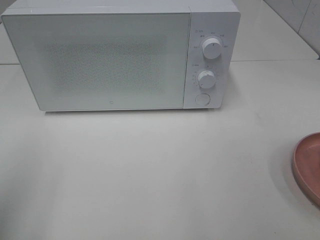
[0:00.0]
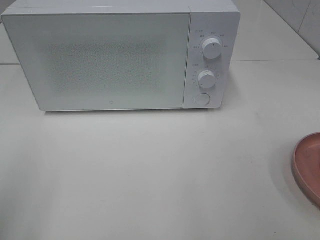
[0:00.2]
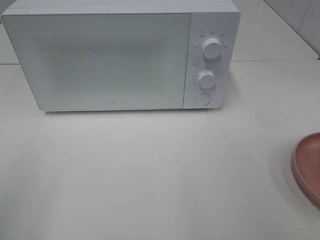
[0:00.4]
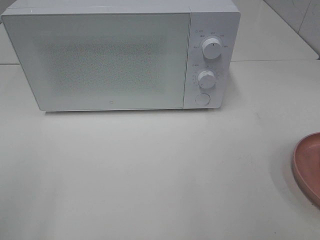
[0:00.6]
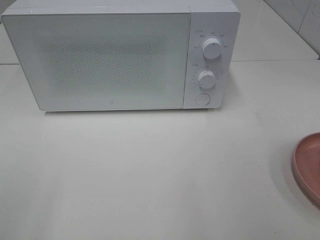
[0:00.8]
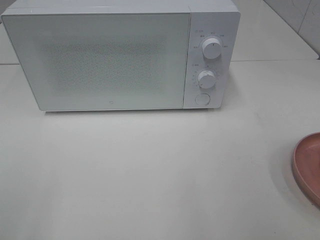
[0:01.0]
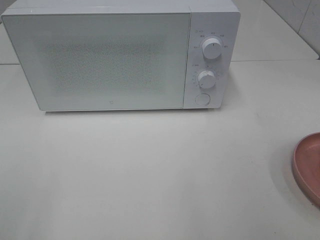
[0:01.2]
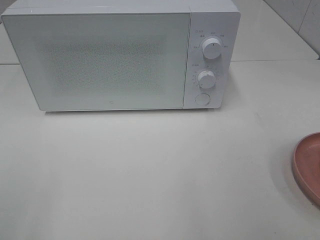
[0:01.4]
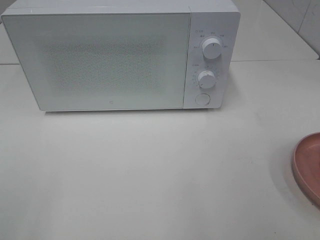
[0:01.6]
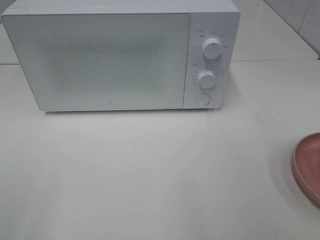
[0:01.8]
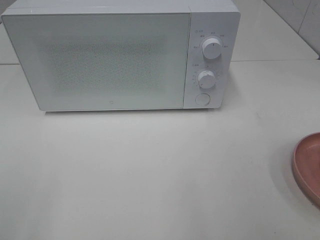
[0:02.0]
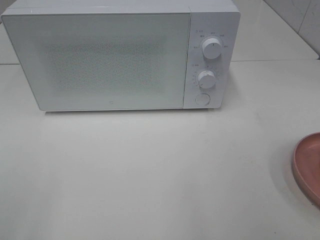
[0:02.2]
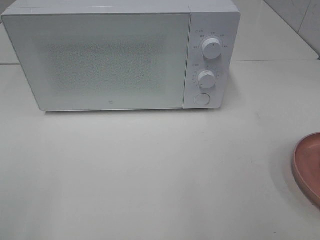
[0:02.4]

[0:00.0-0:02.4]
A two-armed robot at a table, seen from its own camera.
Task of the whole recording: Heat the burger.
0:01.2 to 0:02.4: The two grippers keep their place.

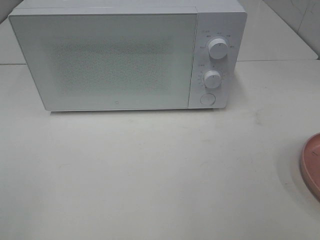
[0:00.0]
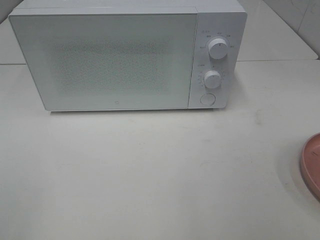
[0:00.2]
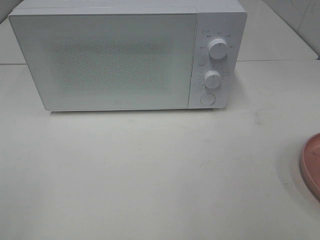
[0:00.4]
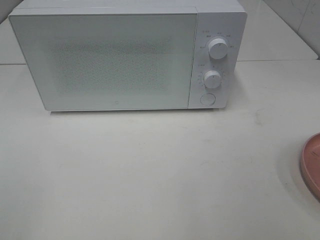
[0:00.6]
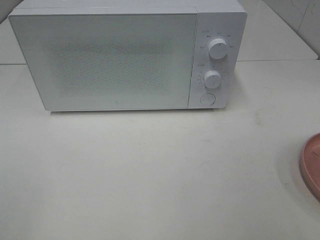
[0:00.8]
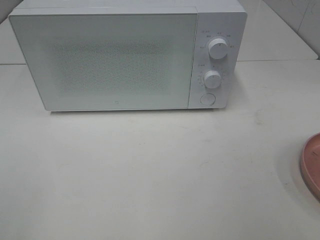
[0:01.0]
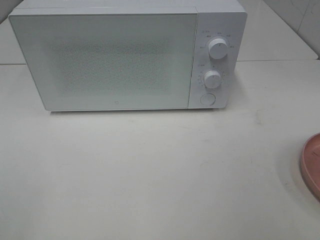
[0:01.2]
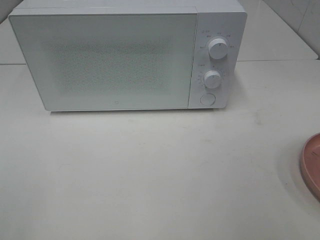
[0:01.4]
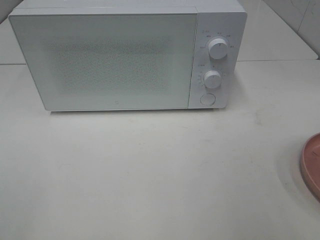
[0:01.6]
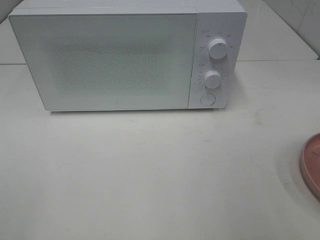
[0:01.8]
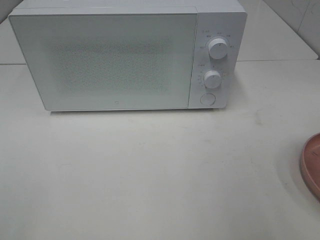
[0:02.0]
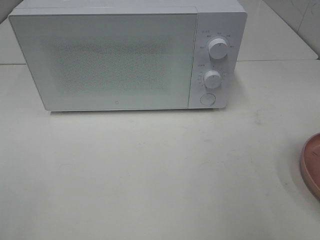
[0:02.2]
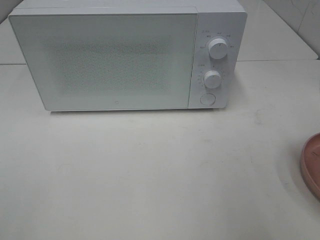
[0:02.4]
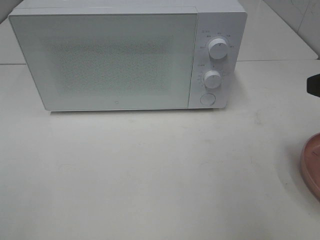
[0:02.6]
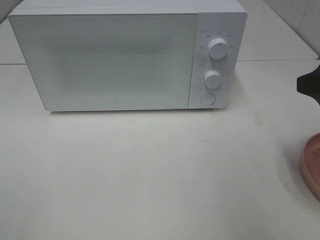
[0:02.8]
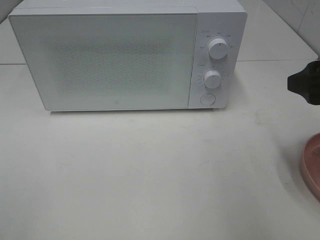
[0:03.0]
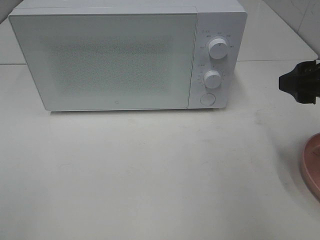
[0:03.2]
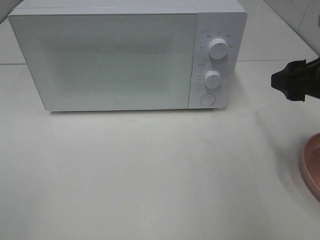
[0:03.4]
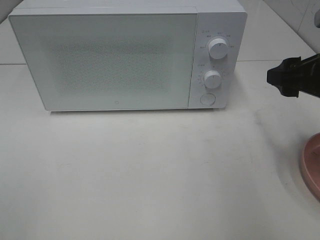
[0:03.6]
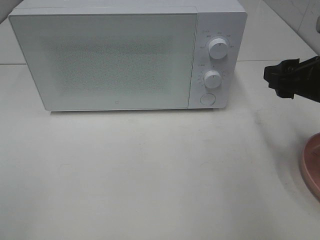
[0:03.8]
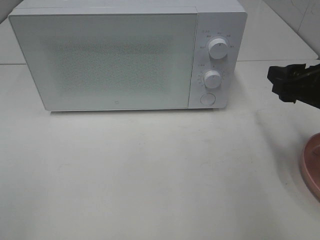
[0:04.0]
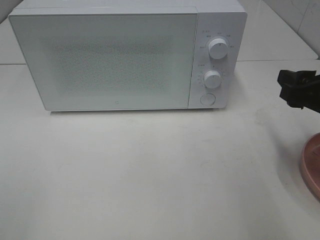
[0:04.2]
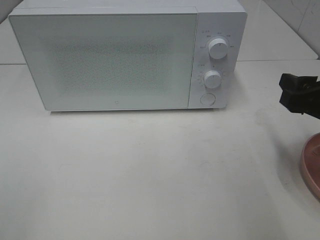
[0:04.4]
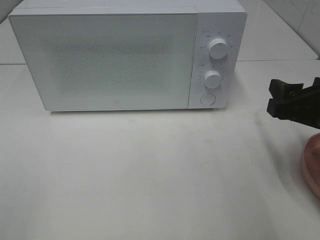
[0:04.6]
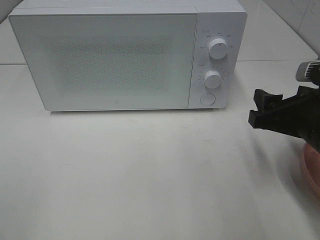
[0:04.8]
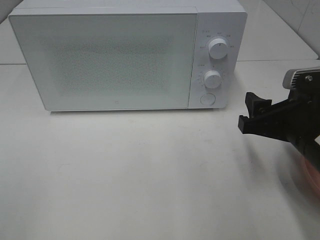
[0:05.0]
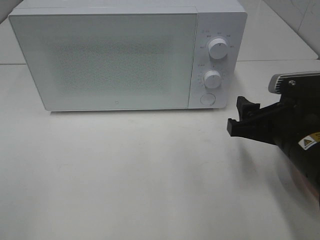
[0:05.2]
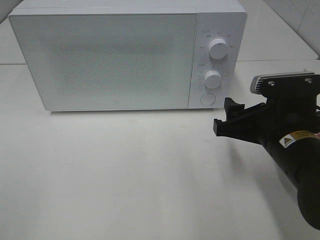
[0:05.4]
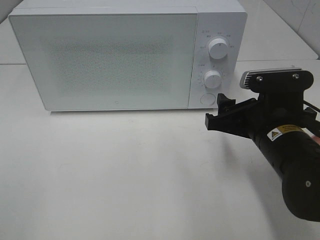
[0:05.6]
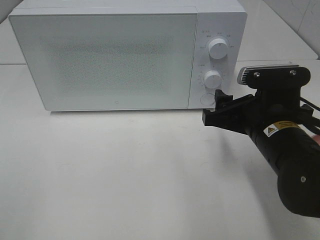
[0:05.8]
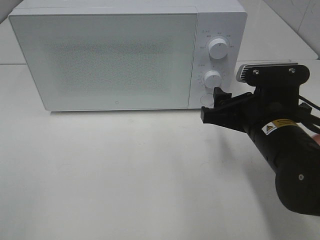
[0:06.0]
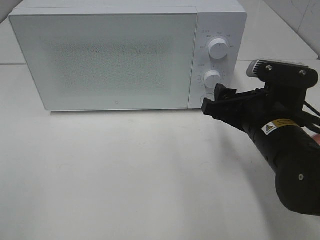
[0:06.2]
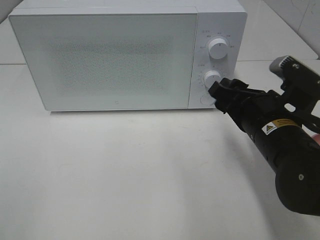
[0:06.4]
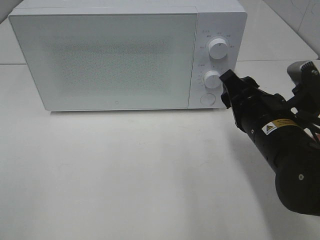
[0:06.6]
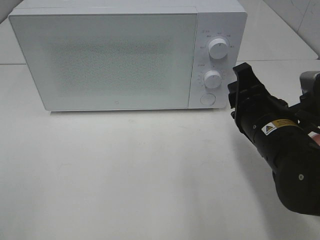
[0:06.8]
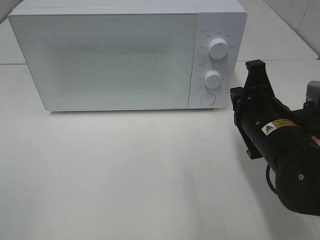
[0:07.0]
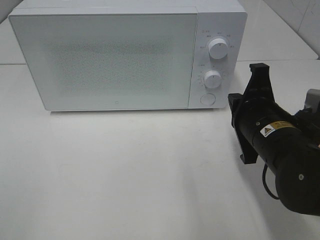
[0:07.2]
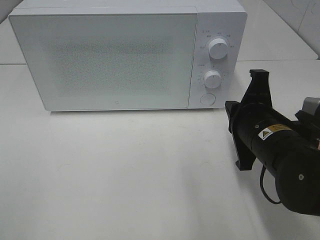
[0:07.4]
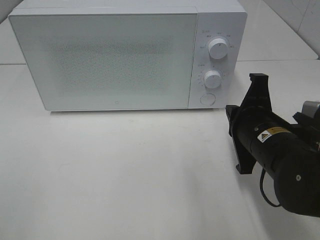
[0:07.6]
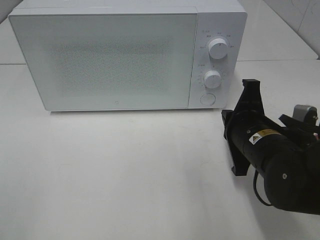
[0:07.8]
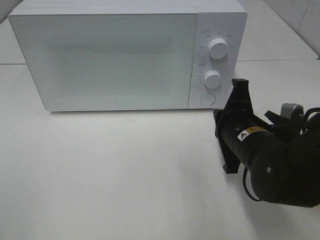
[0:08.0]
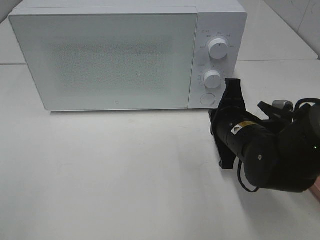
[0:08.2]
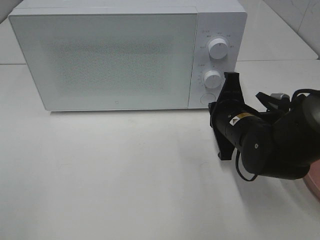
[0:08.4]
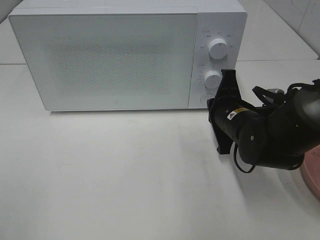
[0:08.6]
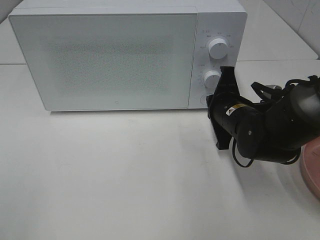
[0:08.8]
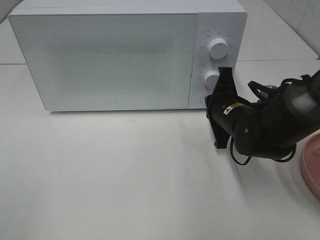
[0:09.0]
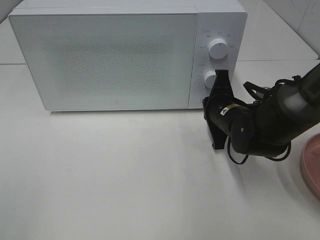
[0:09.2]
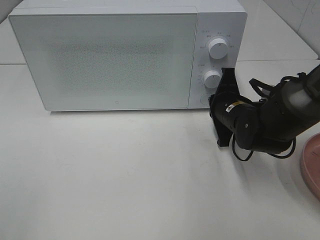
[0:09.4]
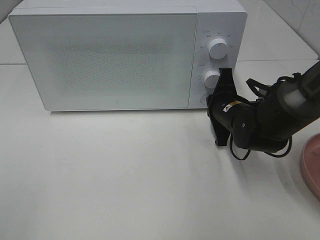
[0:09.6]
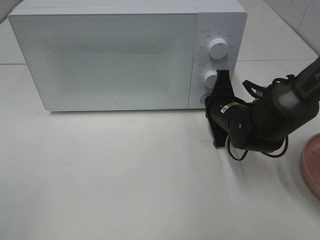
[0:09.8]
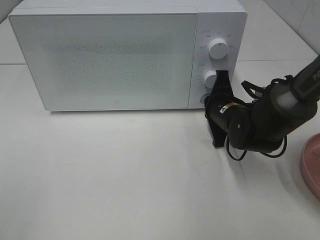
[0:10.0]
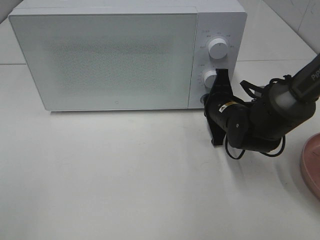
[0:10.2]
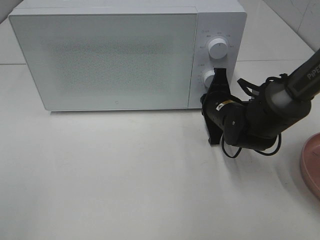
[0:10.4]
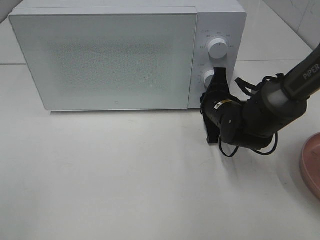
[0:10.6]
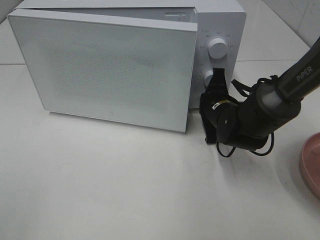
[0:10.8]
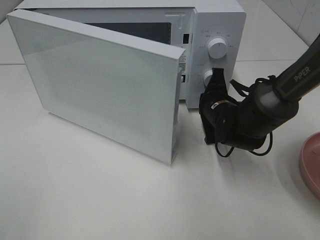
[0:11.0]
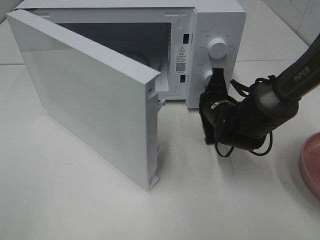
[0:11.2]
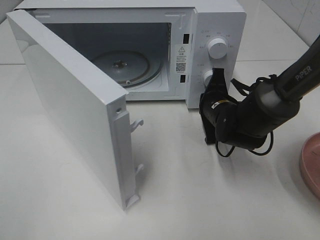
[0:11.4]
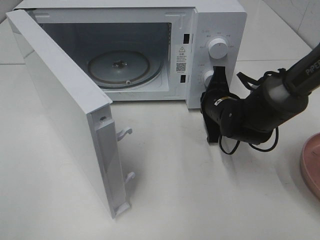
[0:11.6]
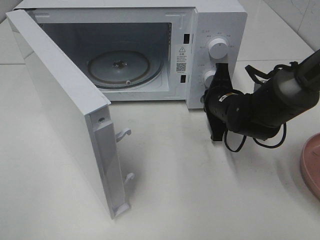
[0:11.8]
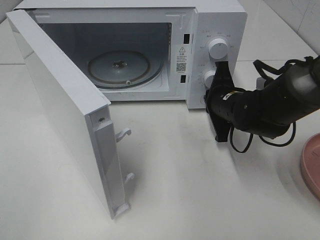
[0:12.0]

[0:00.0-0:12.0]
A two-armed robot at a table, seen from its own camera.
Task of the whole recording: Heat the burger.
0:01.6 to 0:03.0: The right gripper heads forward, covering roughly 15 cm.
0:03.0 to 0:04.4: The right gripper moves downward, approximately 5 cm.
0:04.4 to 0:06.0: The right gripper heads to the left, covering some 10 cm.
0:06.0 to 0:07.6: The right gripper closes its fingers.
0:07.6 to 0:09.0: The right gripper goes about 10 cm forward.
0:09.0 to 0:10.4: The grippers make only small movements.

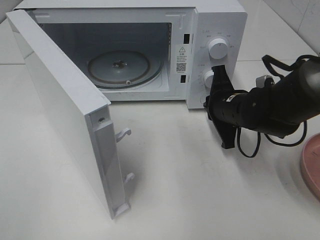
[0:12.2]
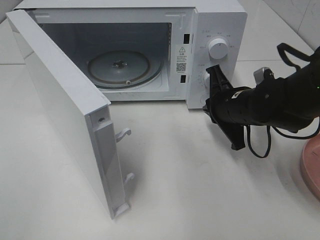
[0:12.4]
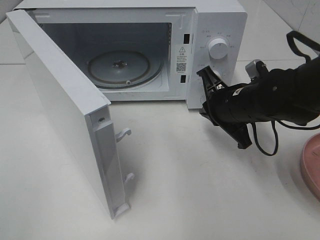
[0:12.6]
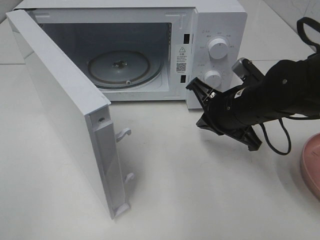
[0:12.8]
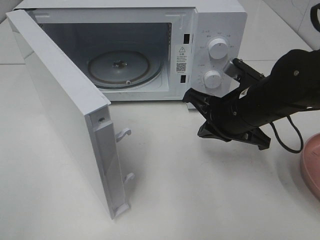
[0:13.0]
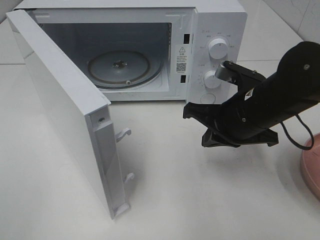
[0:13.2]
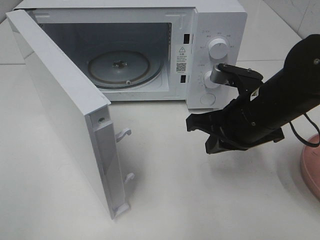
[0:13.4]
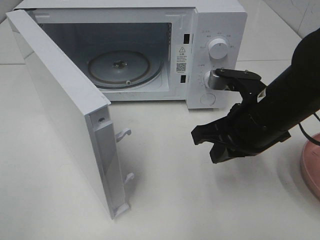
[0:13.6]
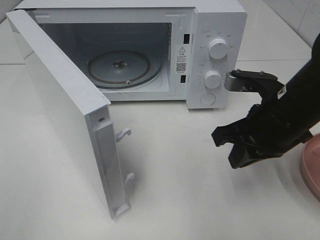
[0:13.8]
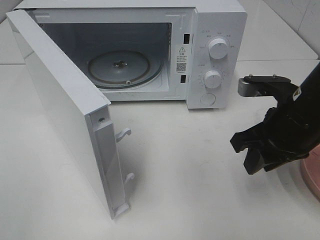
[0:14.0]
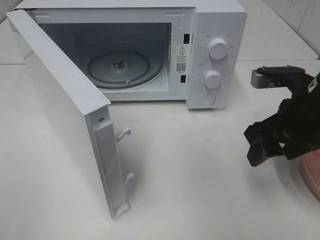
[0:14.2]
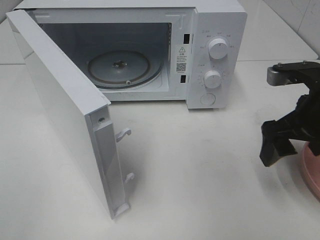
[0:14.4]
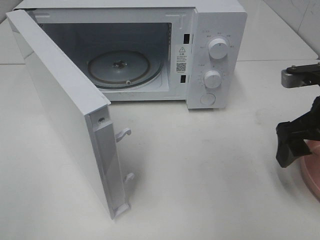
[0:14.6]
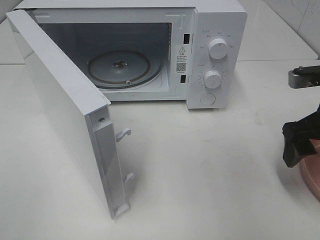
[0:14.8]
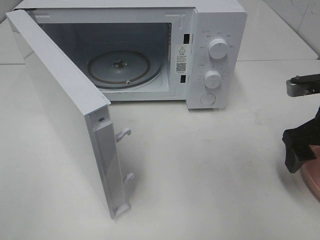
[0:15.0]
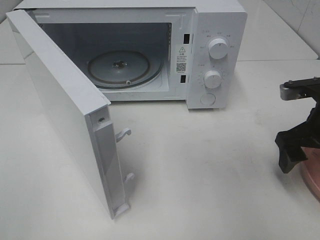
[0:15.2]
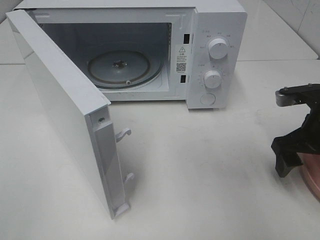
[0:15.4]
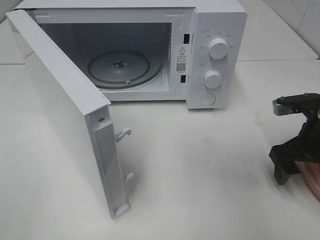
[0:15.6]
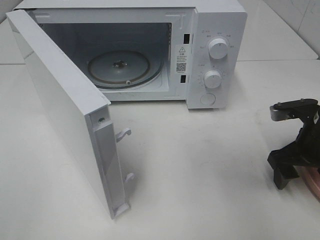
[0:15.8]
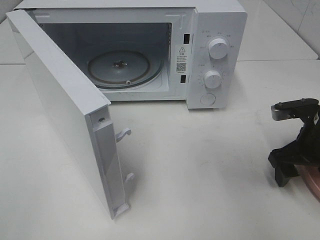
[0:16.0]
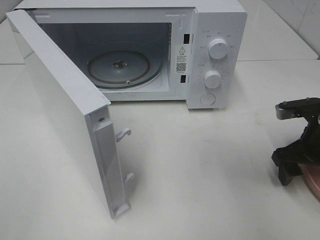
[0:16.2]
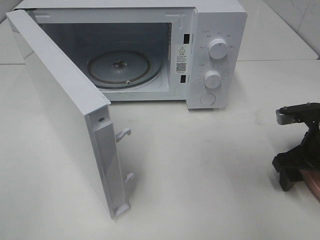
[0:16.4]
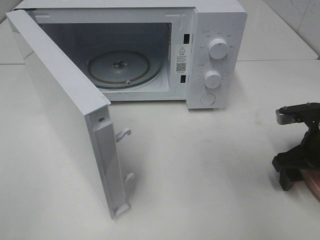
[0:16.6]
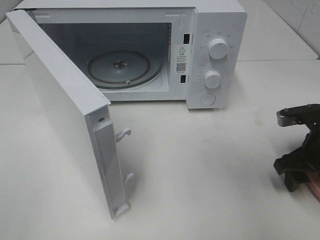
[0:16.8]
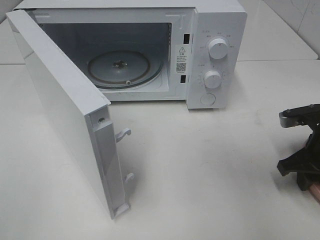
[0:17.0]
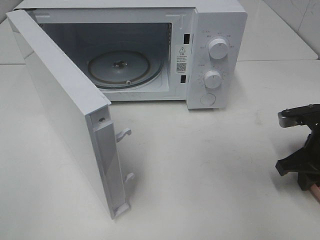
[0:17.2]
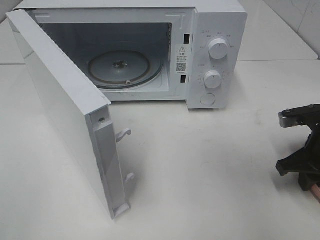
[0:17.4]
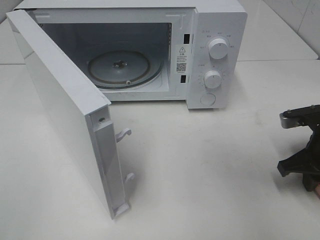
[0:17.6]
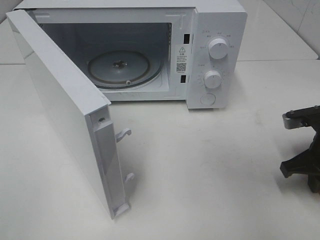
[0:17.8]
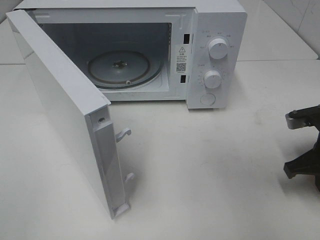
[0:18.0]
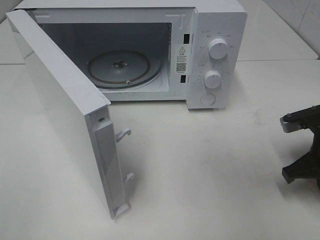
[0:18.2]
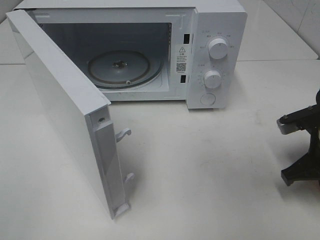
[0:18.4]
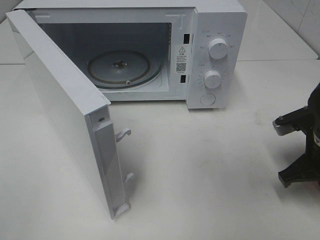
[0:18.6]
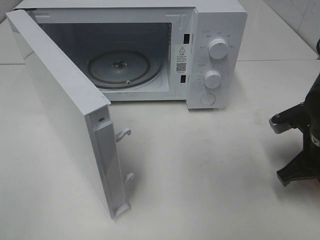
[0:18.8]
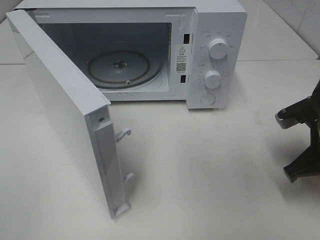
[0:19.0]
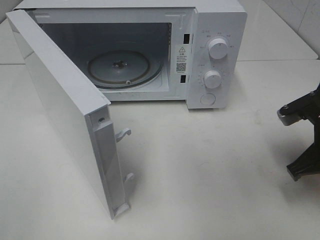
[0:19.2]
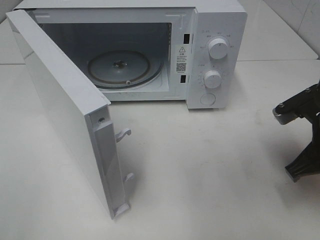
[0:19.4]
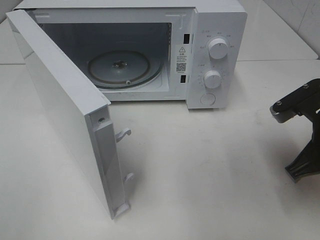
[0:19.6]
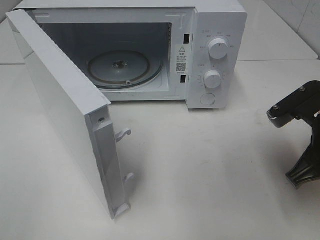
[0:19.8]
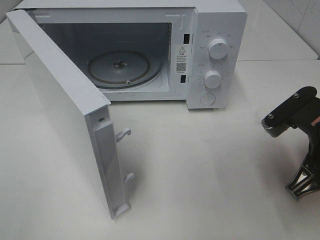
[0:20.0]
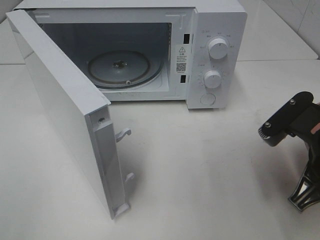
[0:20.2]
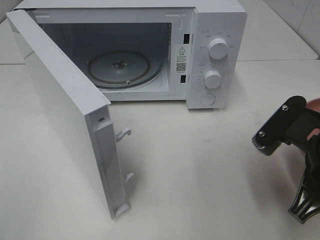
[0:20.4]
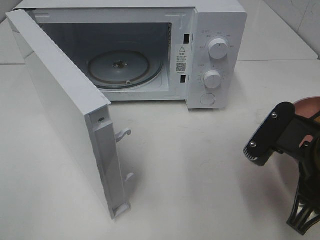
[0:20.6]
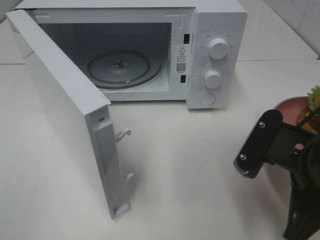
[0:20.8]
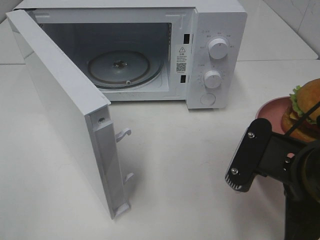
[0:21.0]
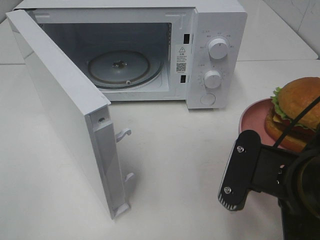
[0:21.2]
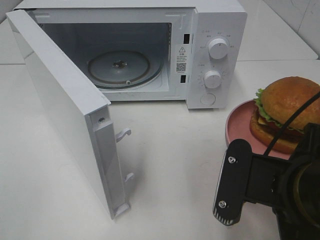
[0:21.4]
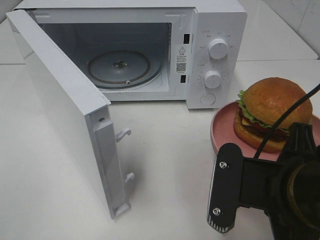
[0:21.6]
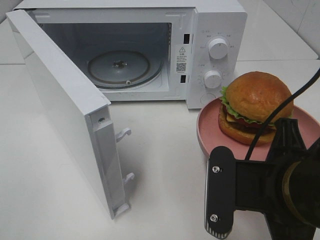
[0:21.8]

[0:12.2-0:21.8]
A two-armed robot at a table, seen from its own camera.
Task of the whole recording: Heat the burger.
Step, 0:12.4 to 0:18.4: Right hand: grab the plate with the hamburger.
0:12.2 to 0:13.8: The right gripper heads backward and upward, covering some 10 cm.
0:13.8 to 0:15.4: The right gripper travels to the right by about 10 cm, and opens.
0:15.4 to 0:17.0: The right gripper closes up.
0:17.0 to 0:18.6: The right gripper closes.
0:18.6 to 0:20.2: The right gripper heads backward, upward and to the left, covering about 10 cm.
0:20.2 to 0:21.8: The right gripper travels to the left and backward by approximately 10 cm.
